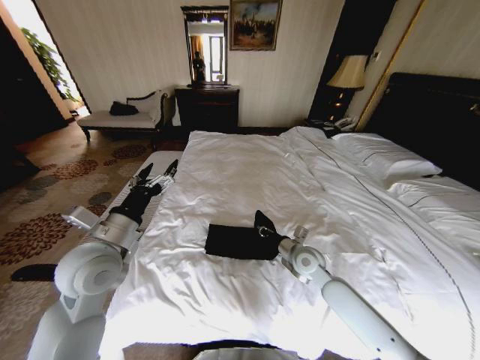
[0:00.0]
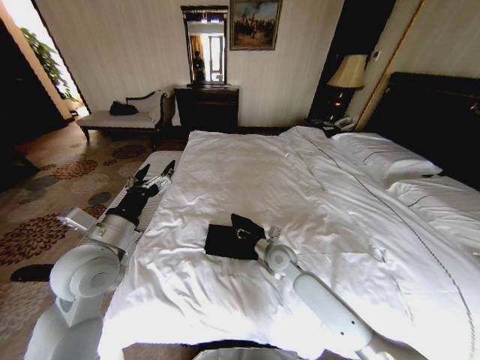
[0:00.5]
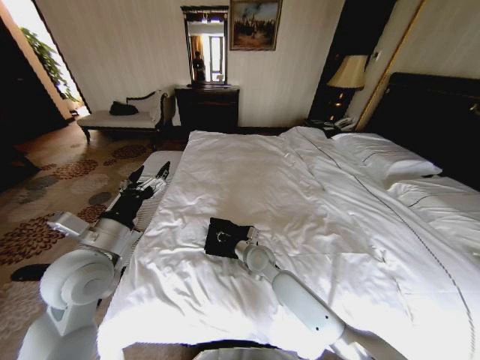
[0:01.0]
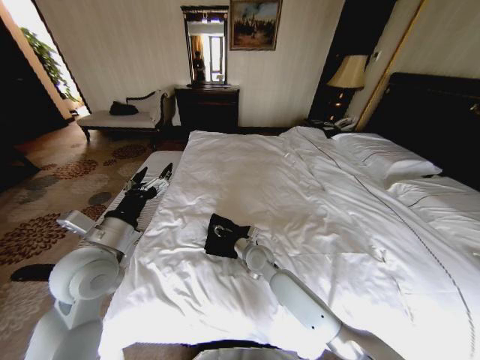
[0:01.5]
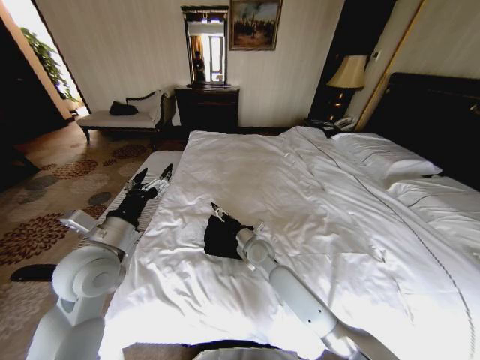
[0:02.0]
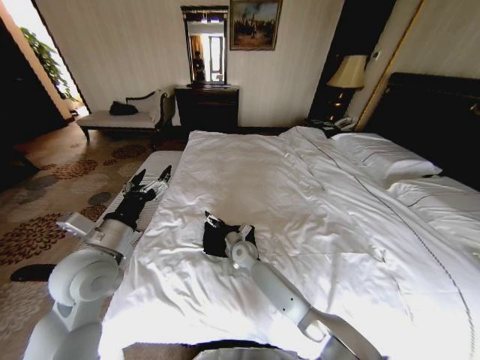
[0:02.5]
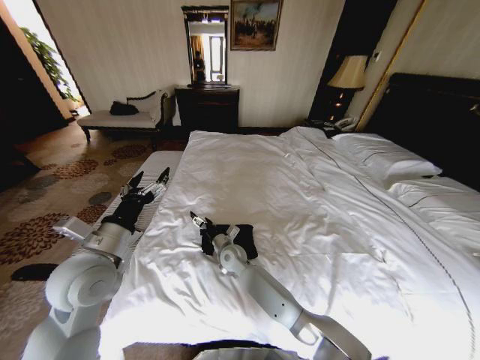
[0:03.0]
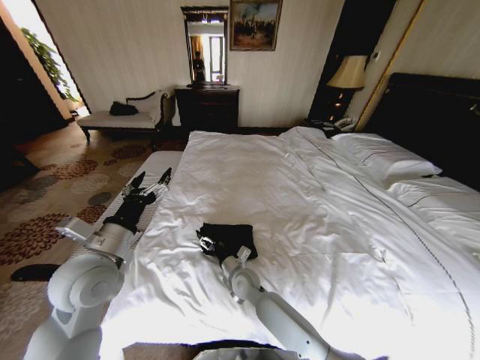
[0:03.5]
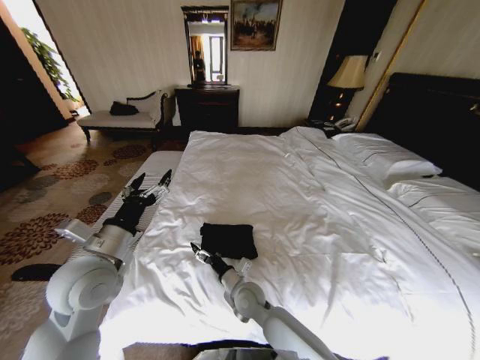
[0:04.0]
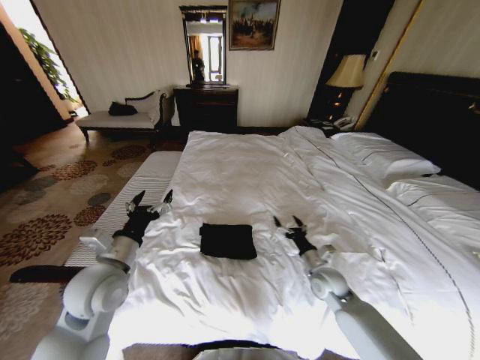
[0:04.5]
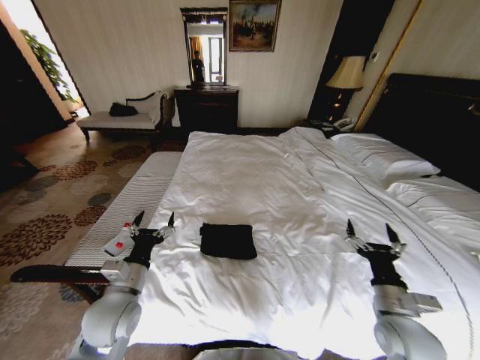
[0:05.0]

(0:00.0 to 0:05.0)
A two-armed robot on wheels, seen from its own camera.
Task of the whole recording: Fold the clothes on the bed.
0:00.0 - 0:02.5: The right gripper heads to the left, downward and forward, covering roughly 20 cm, and opens.
0:02.5 - 0:05.0: The right gripper moves to the right and backward, approximately 40 cm, while the left gripper shifts some 10 cm downward.

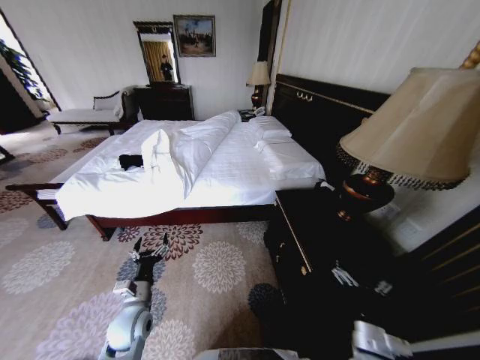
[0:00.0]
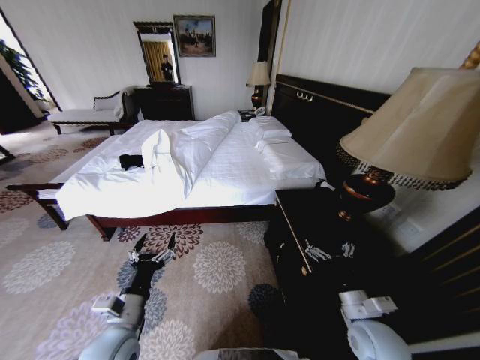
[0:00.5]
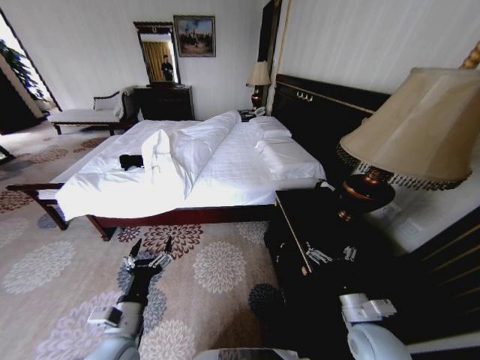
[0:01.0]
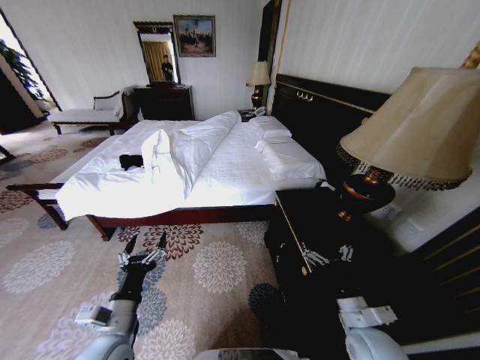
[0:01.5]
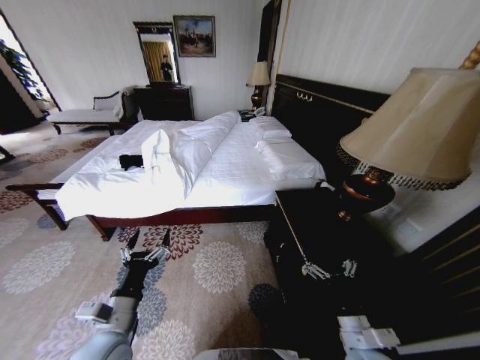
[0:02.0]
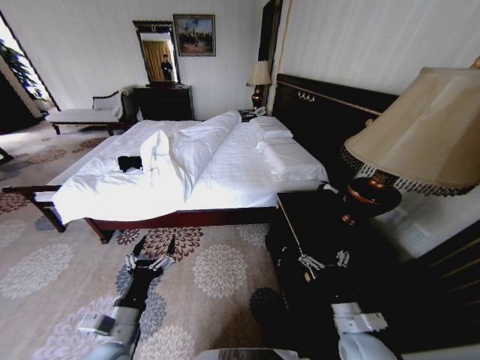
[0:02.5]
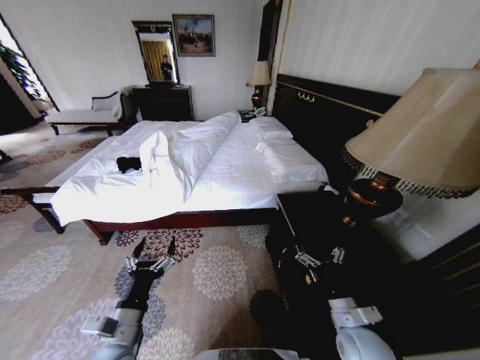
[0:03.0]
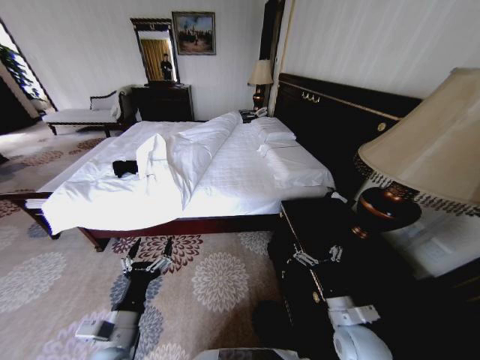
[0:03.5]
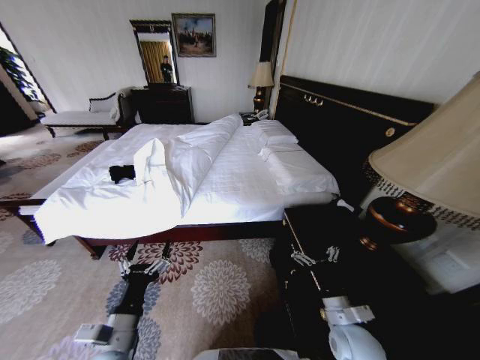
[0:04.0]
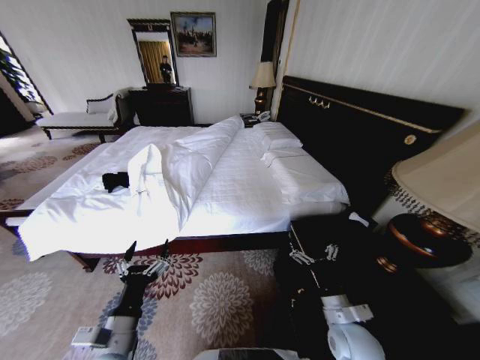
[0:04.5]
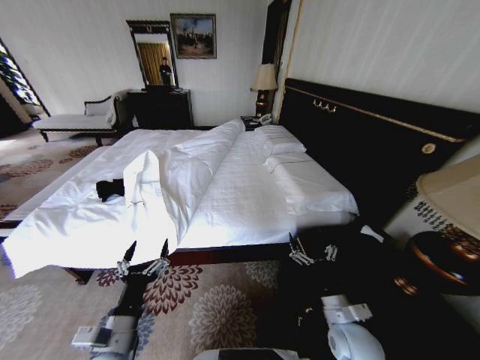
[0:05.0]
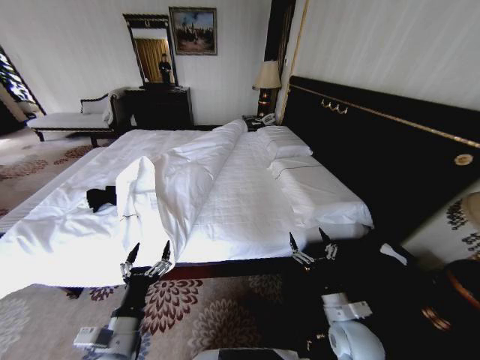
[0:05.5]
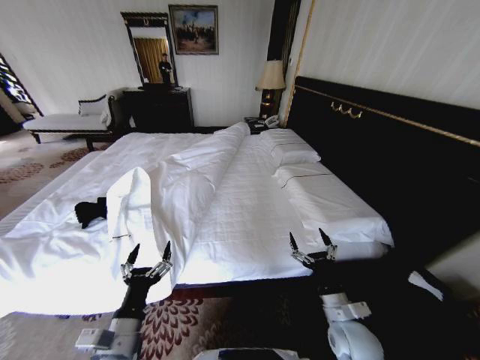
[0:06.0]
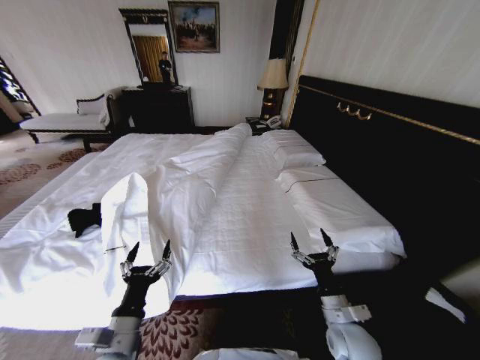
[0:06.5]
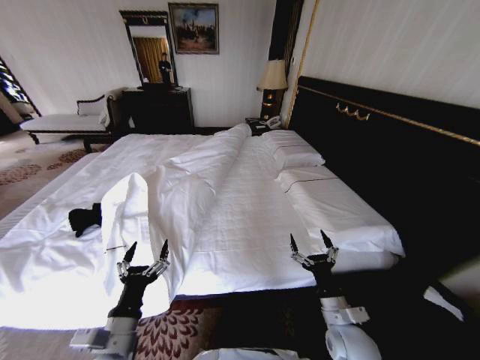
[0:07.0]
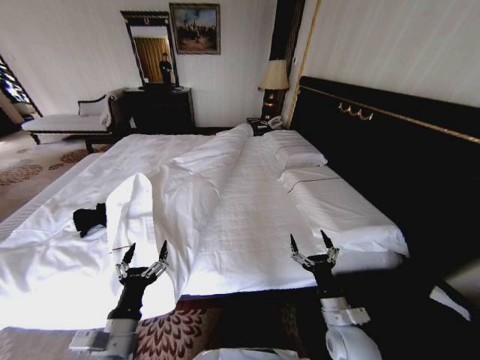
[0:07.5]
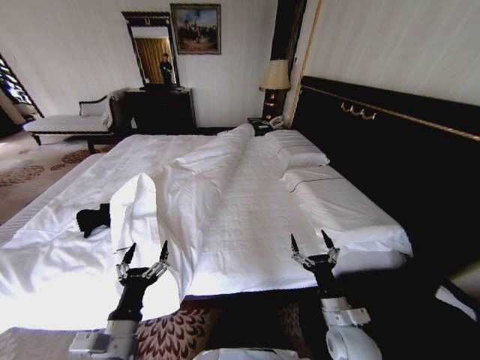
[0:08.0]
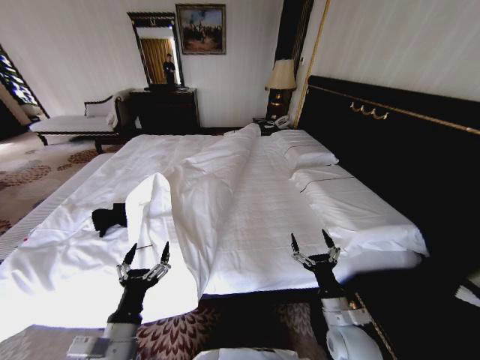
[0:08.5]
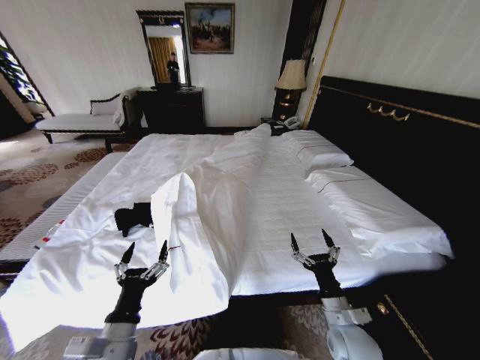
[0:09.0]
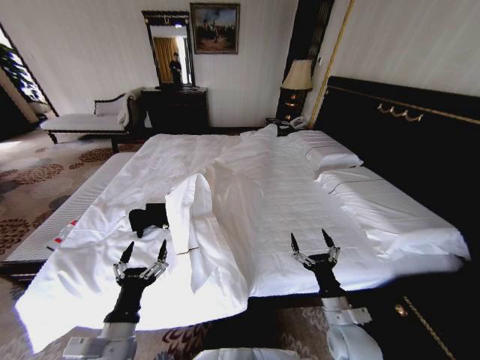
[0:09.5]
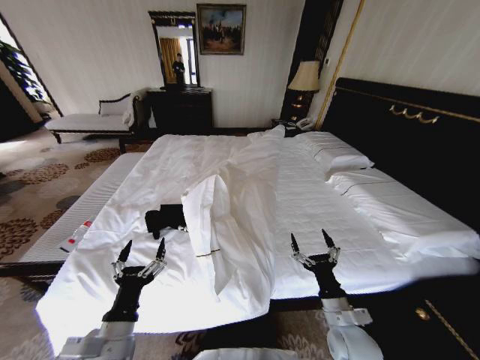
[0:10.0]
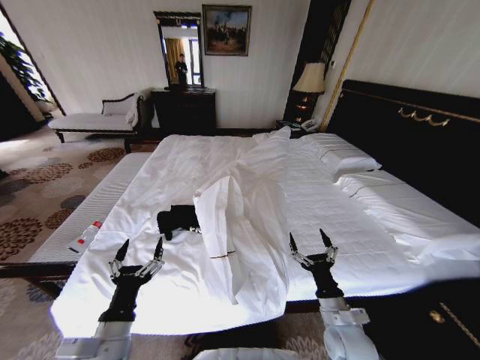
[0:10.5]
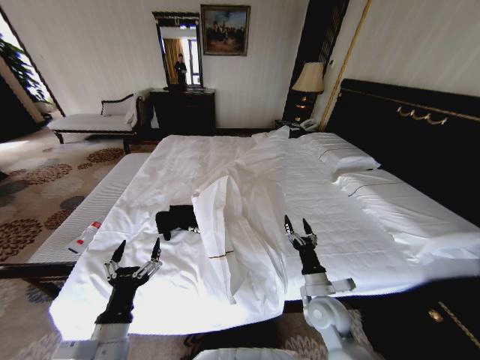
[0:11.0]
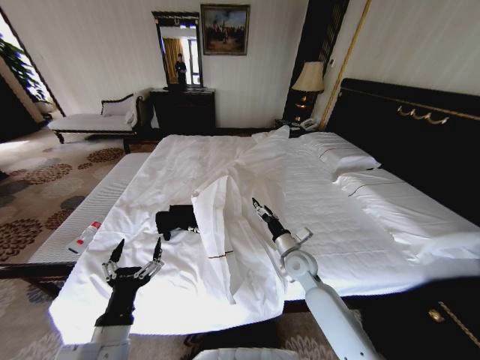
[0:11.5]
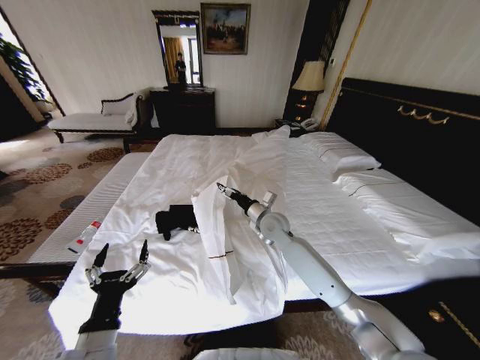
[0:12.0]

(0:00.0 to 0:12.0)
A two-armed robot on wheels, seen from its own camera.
Task of the whole recording: Fold the clothes on the bed.
0:10.0 - 0:12.0: The right gripper is displaced forward and to the left by approximately 30 cm.

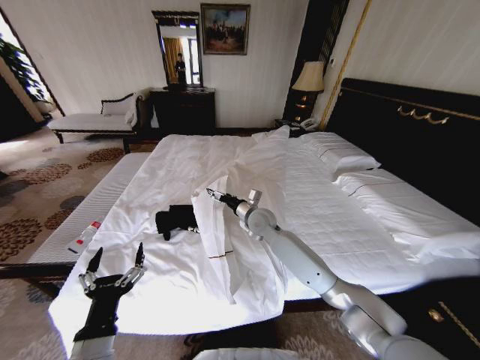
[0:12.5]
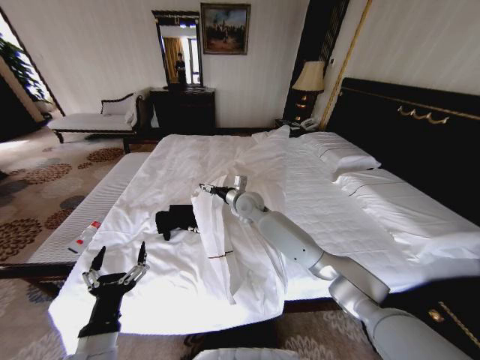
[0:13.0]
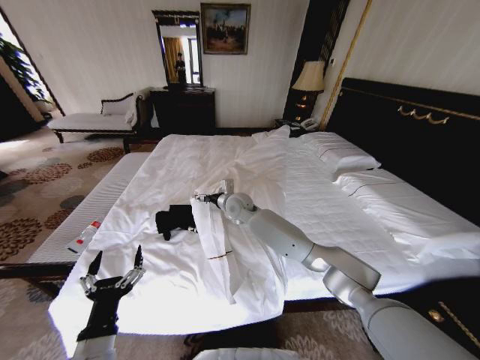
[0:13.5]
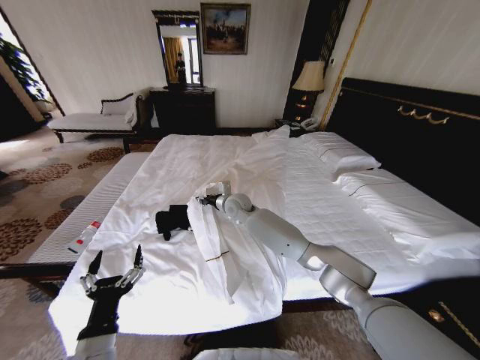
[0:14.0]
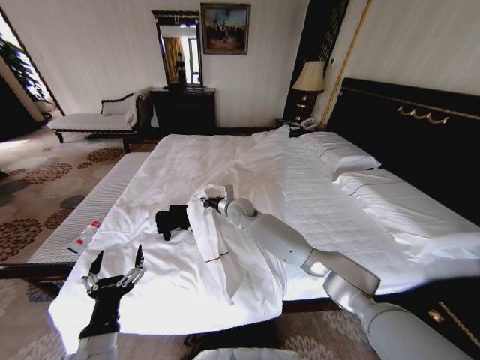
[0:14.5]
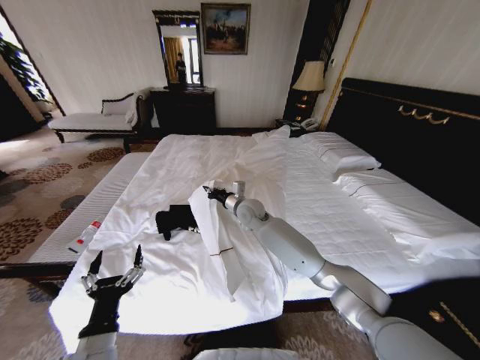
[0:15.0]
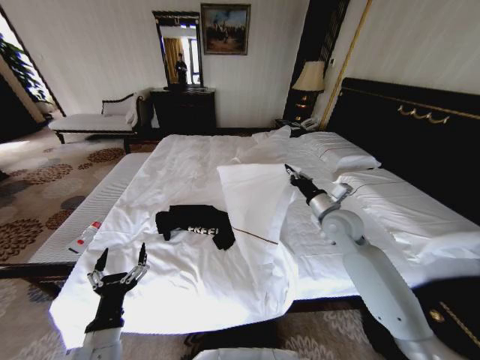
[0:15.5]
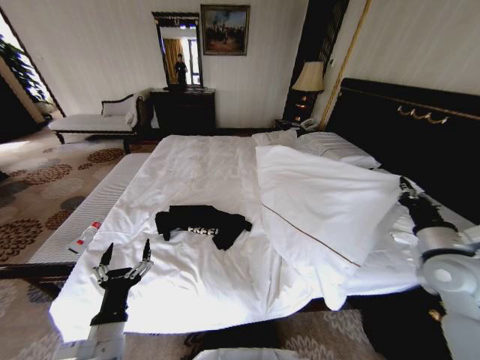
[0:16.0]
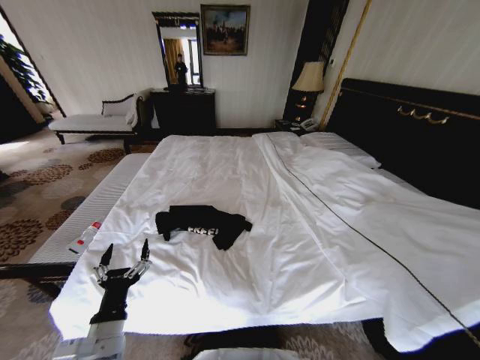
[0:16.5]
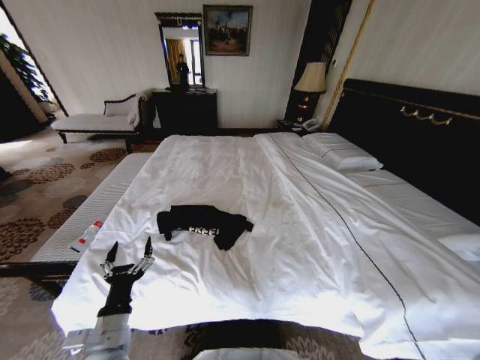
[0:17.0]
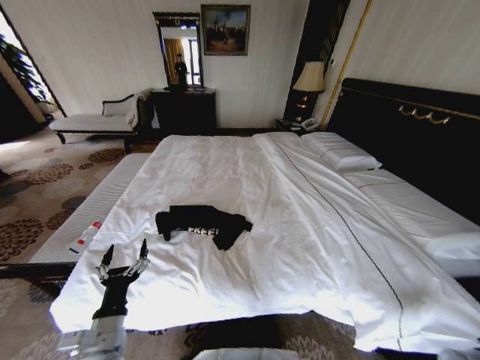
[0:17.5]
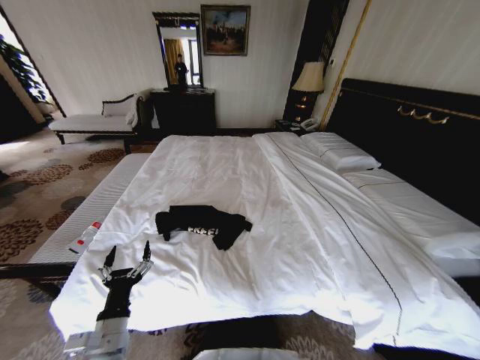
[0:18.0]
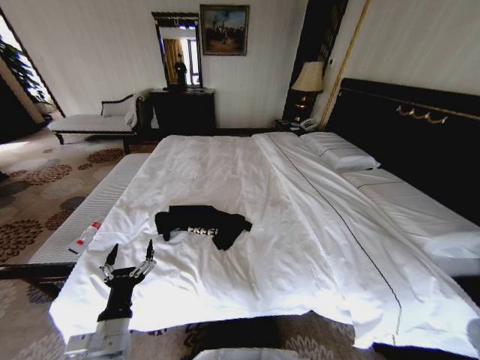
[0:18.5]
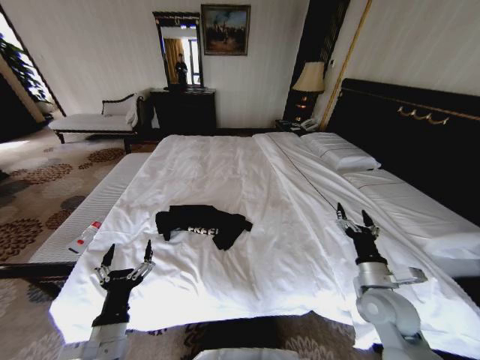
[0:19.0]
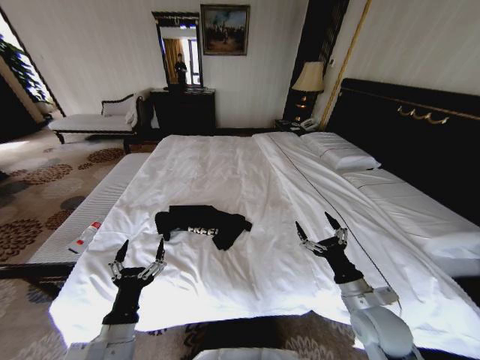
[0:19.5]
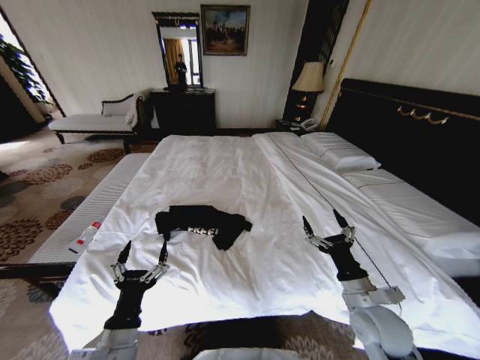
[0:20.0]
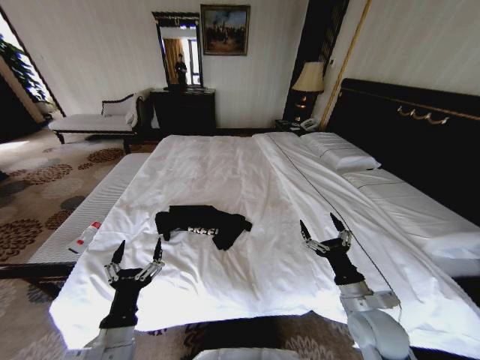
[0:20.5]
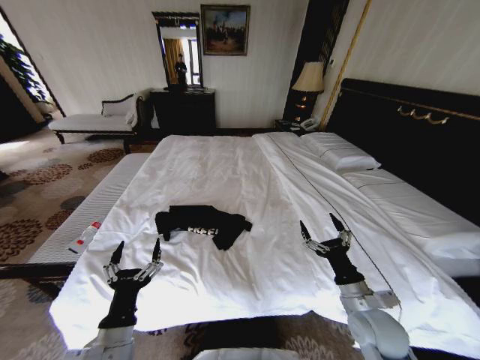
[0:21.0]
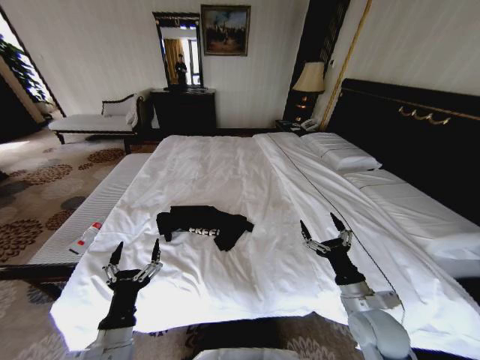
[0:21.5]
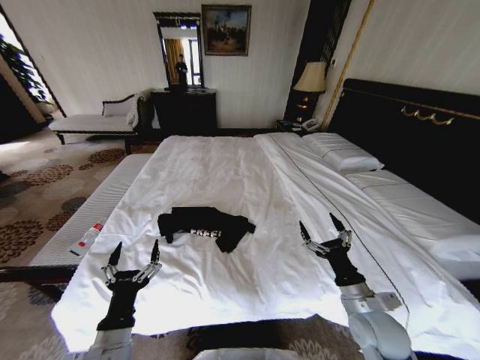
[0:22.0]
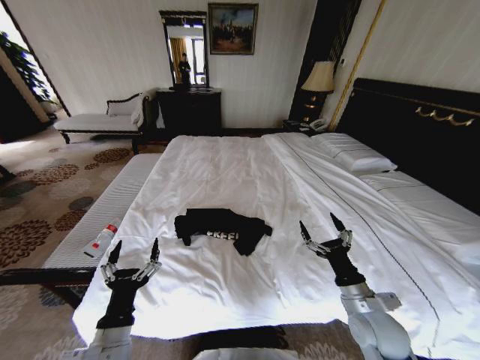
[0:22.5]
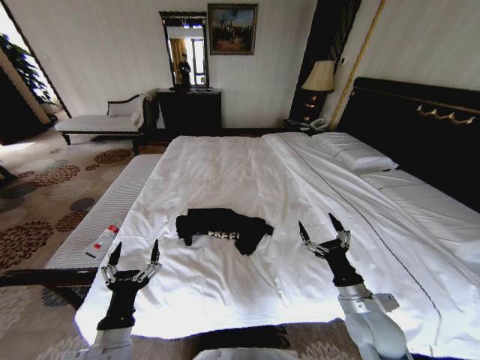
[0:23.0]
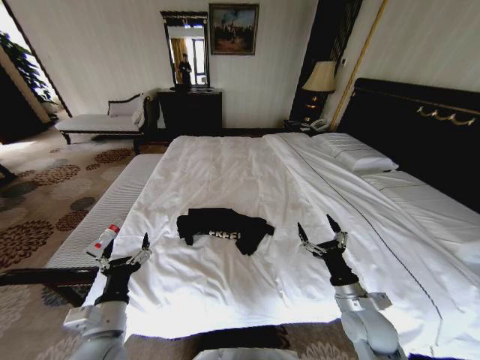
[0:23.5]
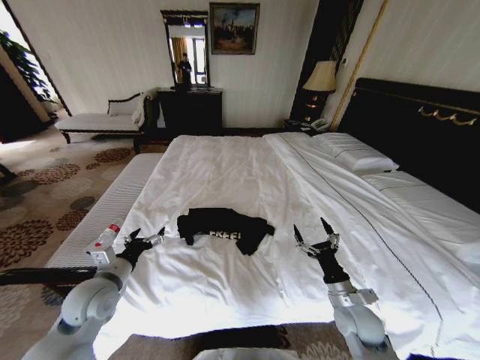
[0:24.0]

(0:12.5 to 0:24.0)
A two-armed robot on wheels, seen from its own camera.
Task of the whole recording: Fold the clothes on the bed.
0:12.5 - 0:14.5: The right gripper goes some 5 cm to the left, and closes up.
0:14.5 - 0:16.5: The right gripper travels to the right and backward by approximately 60 cm.
0:16.5 - 0:18.5: The right gripper shifts about 15 cm downward, and opens its fingers.
0:18.5 - 0:20.0: The right gripper travels to the left by approximately 25 cm.
0:20.0 - 0:22.0: There are only small adjustments of the grippers.
0:22.0 - 0:24.0: The left gripper goes about 15 cm forward and to the left, while the right gripper is displaced downward by roughly 5 cm.
